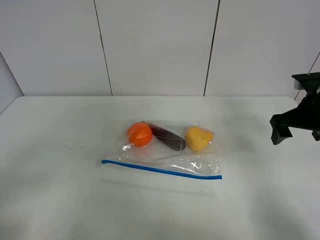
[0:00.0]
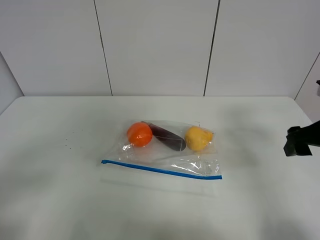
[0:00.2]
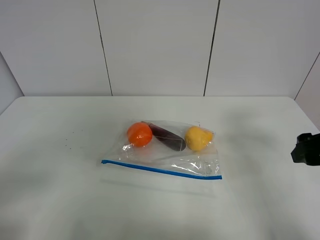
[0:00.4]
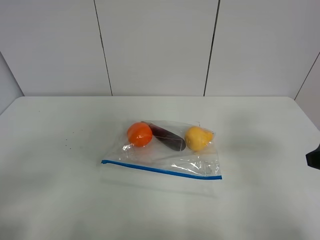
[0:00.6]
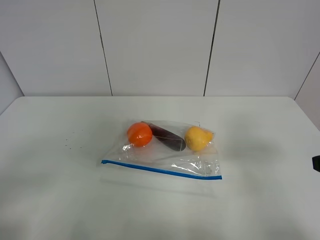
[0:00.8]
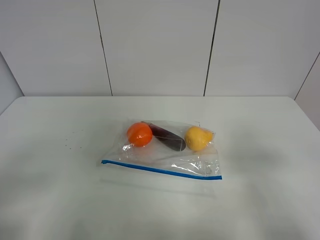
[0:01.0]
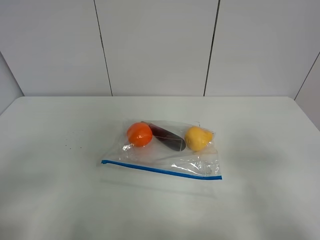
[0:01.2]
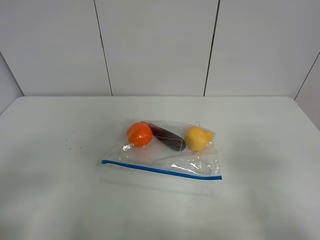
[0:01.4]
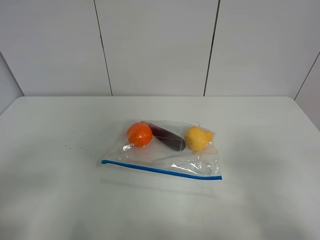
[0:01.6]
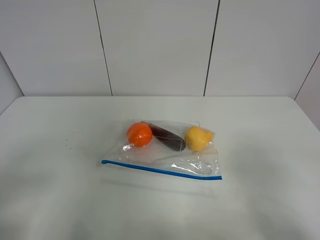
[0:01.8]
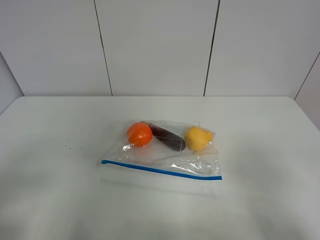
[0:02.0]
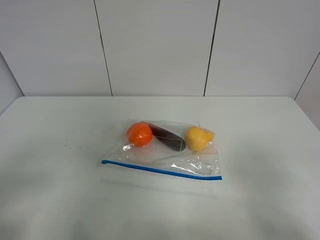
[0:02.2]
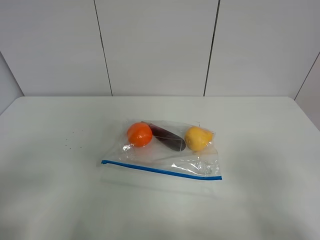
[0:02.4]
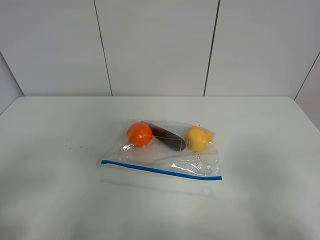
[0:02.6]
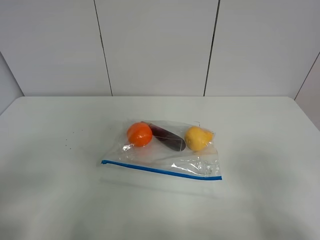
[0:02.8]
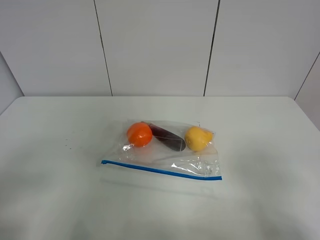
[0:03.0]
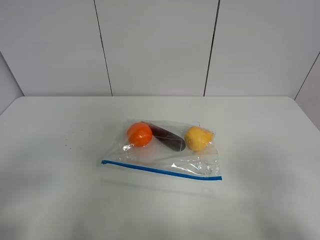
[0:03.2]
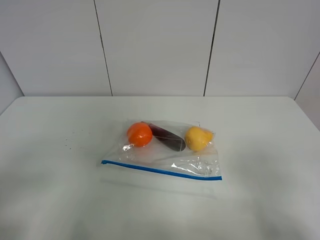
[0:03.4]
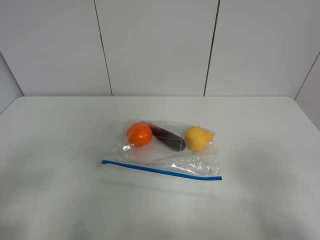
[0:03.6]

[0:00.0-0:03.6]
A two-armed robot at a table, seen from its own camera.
0.0 to 1.8 s: The right gripper heads backward, covering about 25 cm.

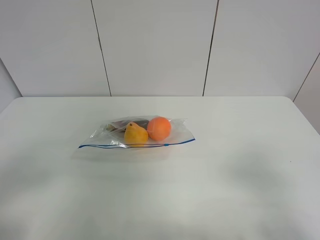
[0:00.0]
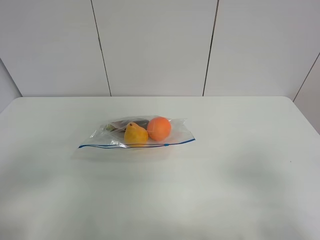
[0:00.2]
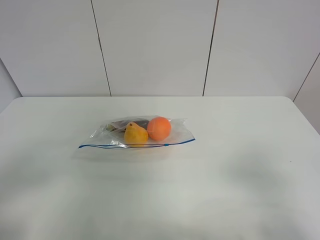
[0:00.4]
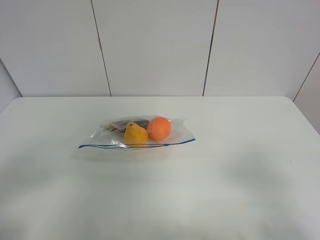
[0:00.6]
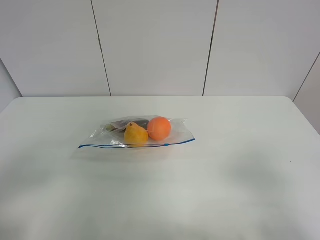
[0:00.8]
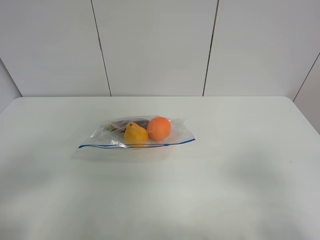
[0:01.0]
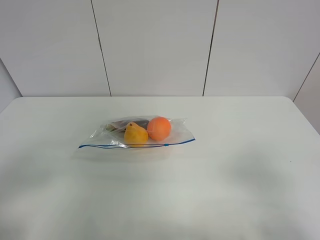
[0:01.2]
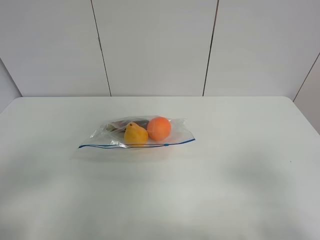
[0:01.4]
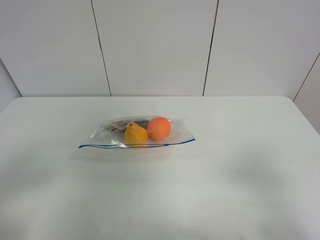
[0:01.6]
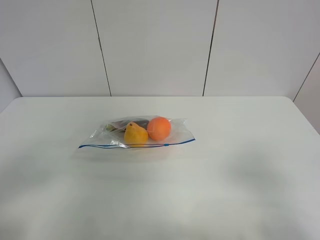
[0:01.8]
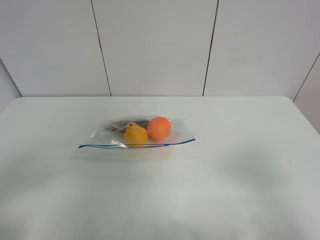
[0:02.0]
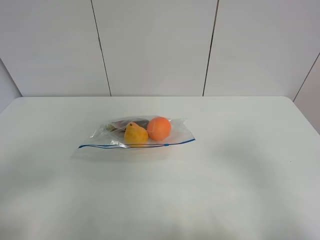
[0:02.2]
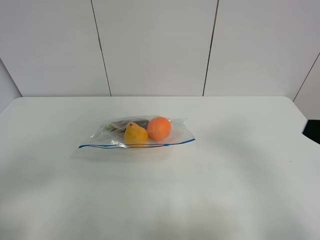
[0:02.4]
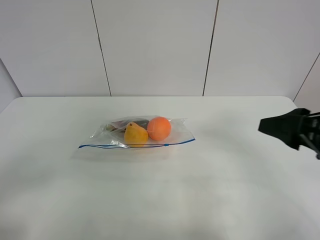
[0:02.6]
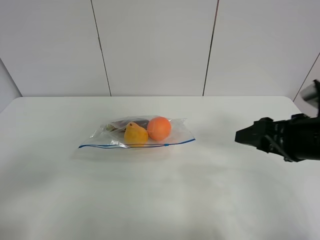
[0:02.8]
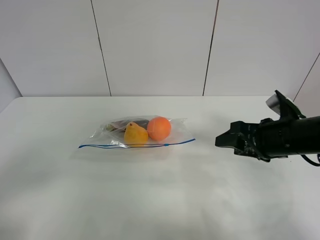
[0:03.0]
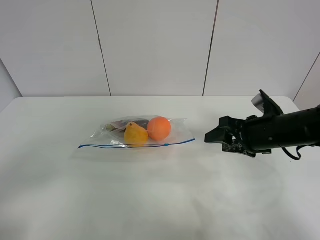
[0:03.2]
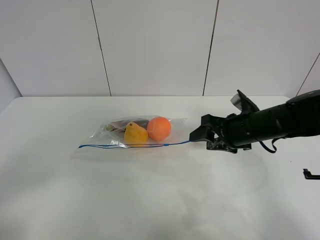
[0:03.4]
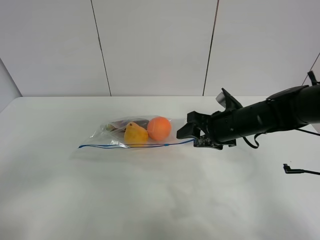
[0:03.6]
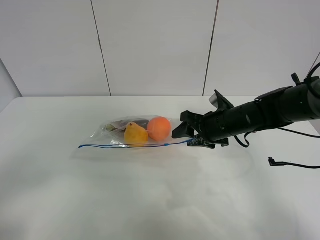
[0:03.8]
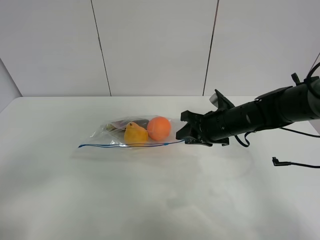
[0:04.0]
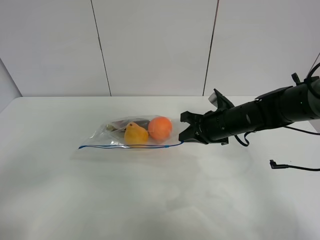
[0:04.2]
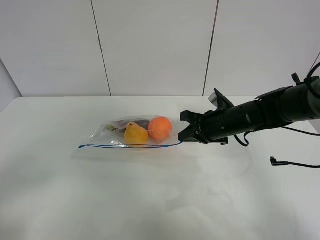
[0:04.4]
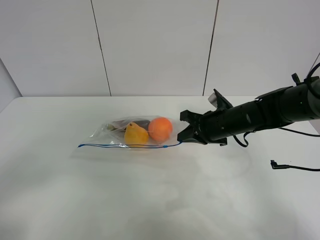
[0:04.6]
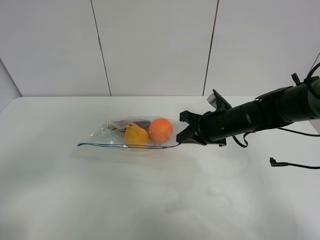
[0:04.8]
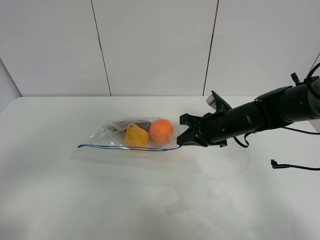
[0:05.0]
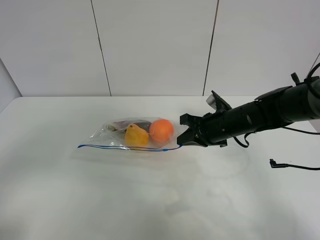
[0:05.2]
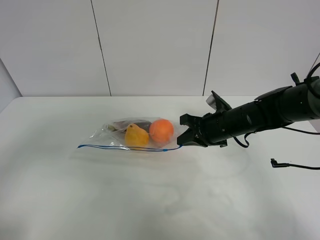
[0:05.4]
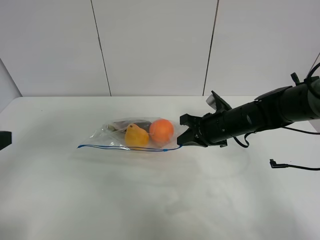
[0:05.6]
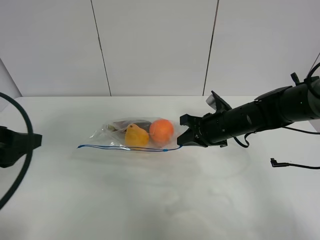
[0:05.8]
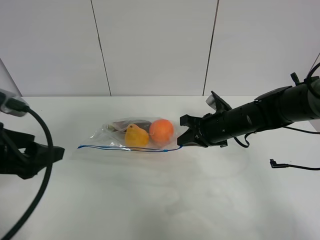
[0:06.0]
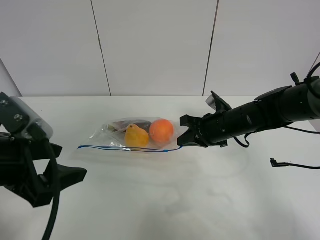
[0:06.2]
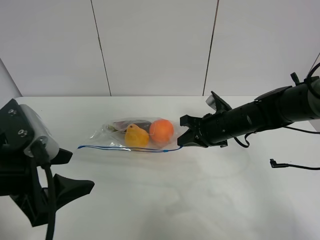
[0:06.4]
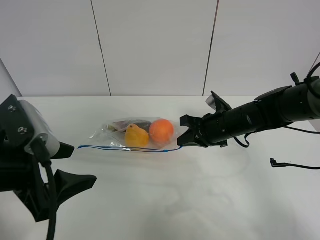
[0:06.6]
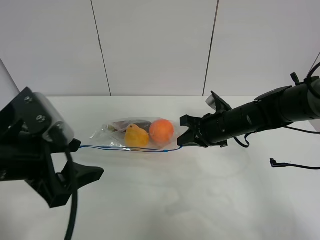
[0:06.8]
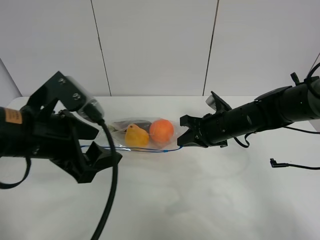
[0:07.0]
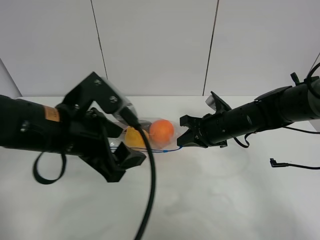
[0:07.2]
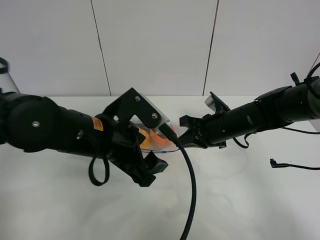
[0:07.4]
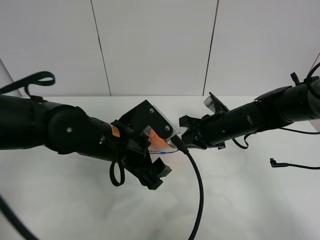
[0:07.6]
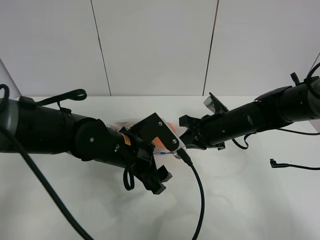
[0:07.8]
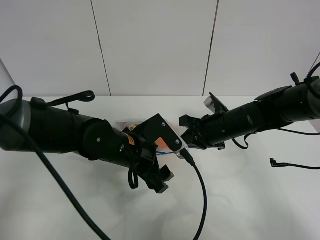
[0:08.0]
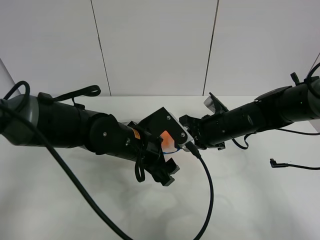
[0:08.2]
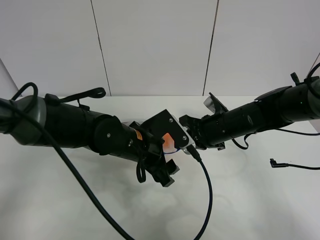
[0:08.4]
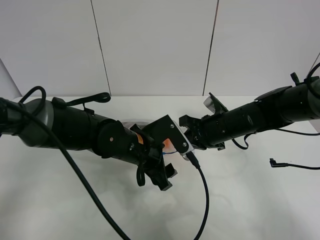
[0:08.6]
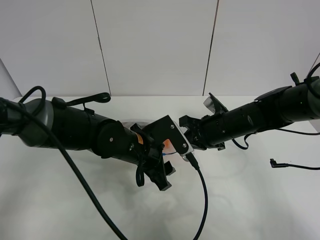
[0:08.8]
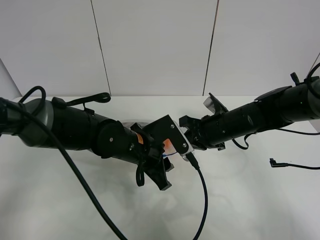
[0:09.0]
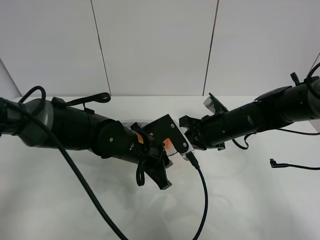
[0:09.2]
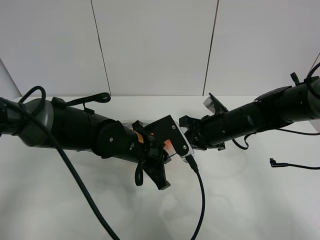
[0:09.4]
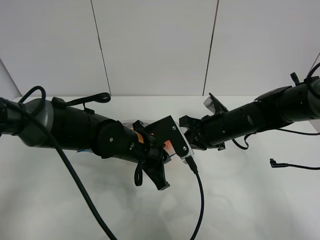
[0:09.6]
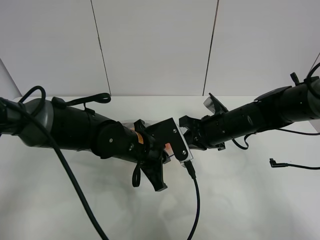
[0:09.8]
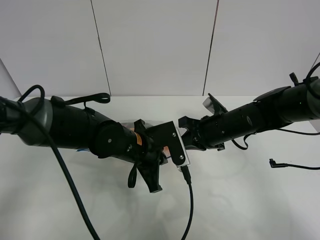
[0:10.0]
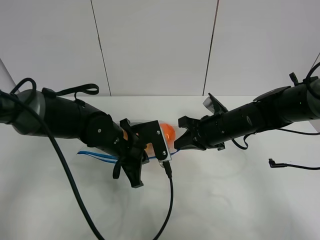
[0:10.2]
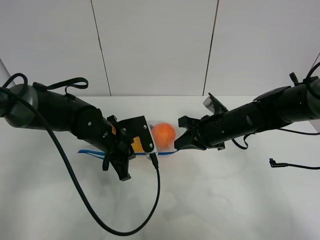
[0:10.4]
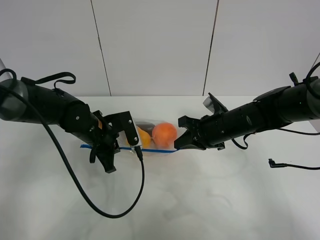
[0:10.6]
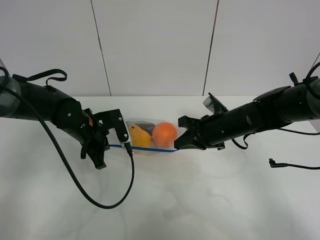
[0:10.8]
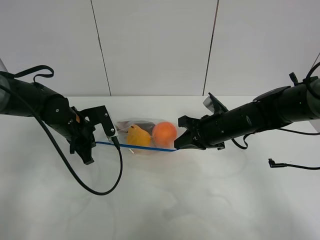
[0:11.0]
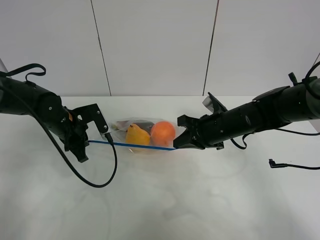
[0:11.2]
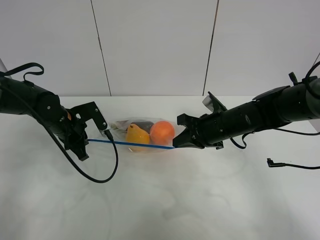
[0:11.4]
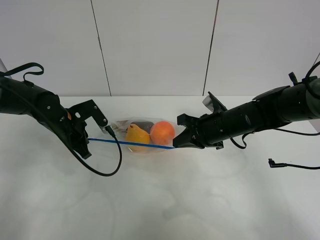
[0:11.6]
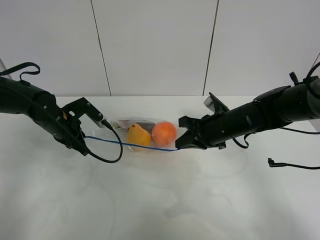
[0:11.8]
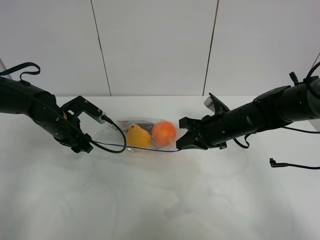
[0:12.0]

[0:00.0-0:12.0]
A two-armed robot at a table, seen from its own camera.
Step, 0.0 to 4.0 s: Grasp the fruit bag with right gripper.
Step, 4.2 to 12.0 s: Pull the fruit bag with left gripper.
0.0 to 1.6 s: Both grippers stay put.
1.6 to 3.0 s: The right gripper goes approximately 25 cm forward.
3.0 to 4.4 s: The right gripper travels forward and to the left by about 10 cm, and closes.
4.4 to 6.0 s: The left gripper goes some 15 cm forward.
6.0 to 7.6 s: The left gripper goes roughly 20 cm to the right and forward.
7.6 to 9.0 s: The left gripper moves about 5 cm, and closes.
9.0 to 10.4 s: The left gripper goes about 5 cm to the left, and closes.
10.4 to 12.0 s: The left gripper goes about 10 cm to the left, and opens its fingers.

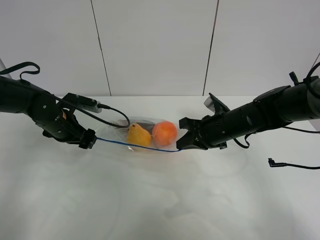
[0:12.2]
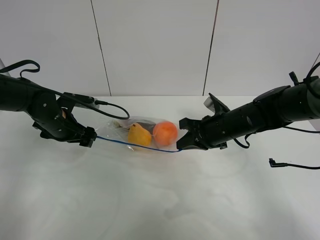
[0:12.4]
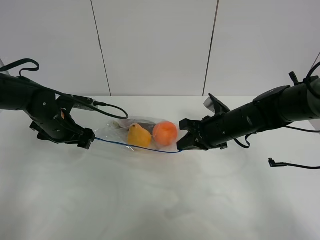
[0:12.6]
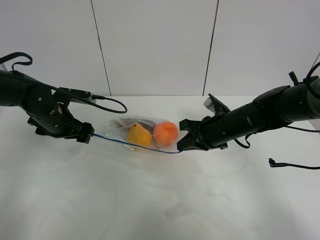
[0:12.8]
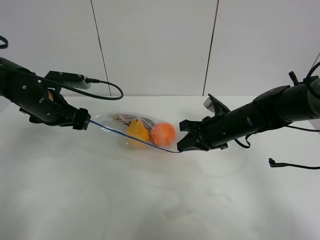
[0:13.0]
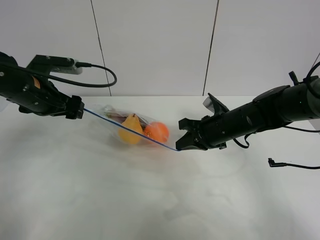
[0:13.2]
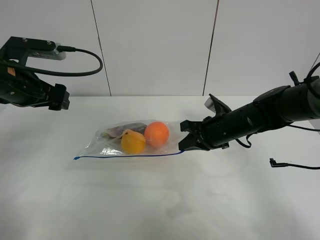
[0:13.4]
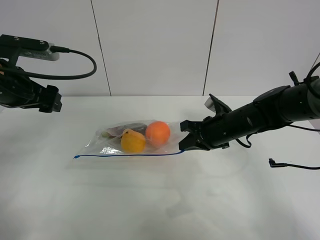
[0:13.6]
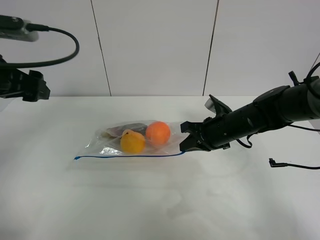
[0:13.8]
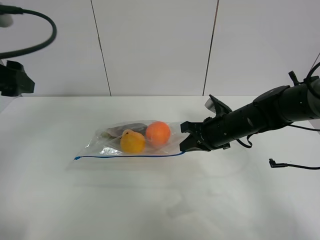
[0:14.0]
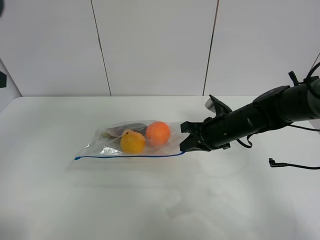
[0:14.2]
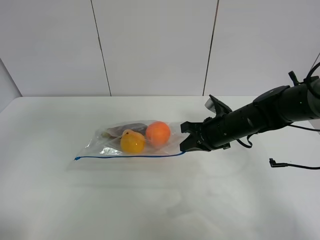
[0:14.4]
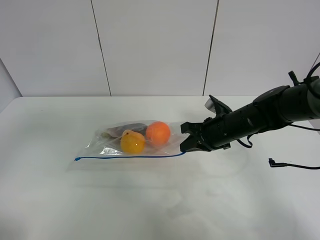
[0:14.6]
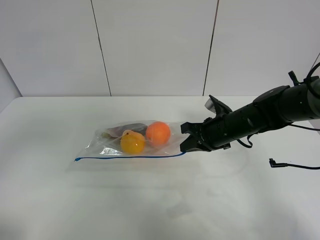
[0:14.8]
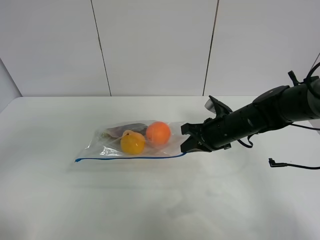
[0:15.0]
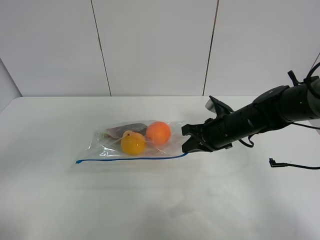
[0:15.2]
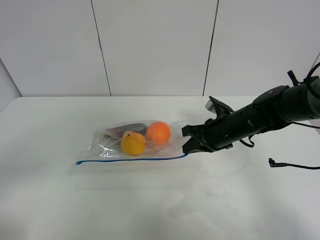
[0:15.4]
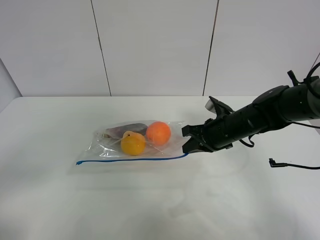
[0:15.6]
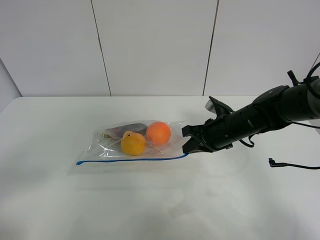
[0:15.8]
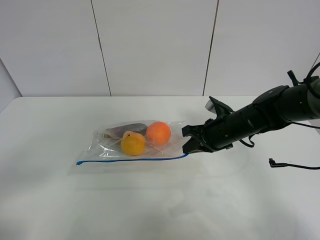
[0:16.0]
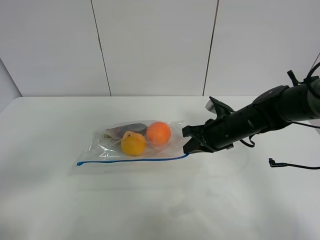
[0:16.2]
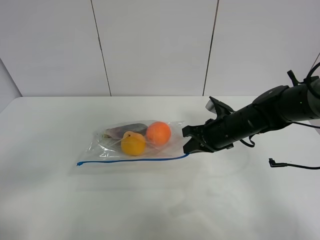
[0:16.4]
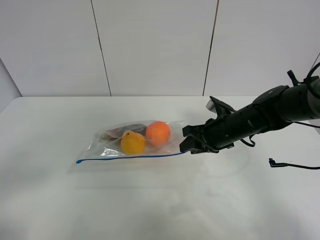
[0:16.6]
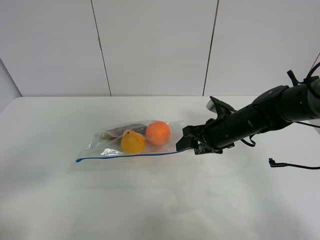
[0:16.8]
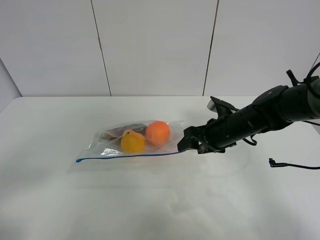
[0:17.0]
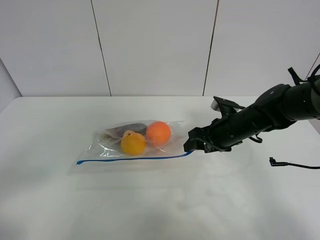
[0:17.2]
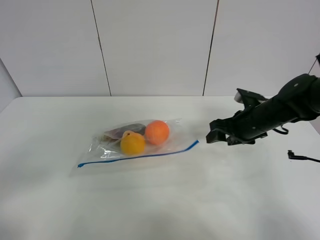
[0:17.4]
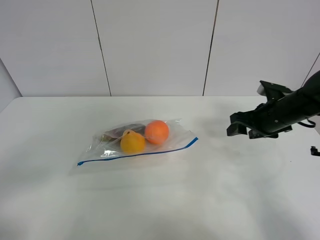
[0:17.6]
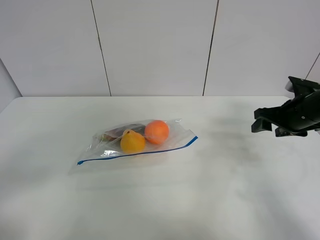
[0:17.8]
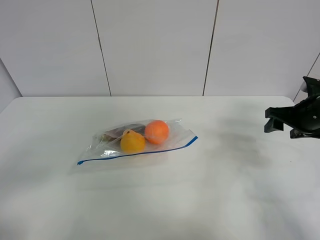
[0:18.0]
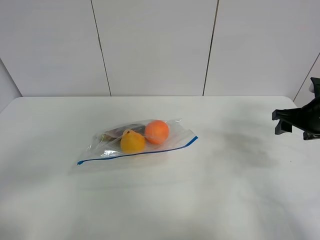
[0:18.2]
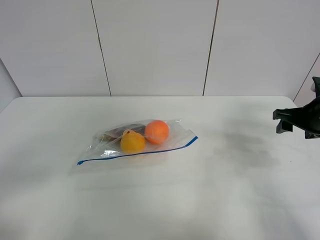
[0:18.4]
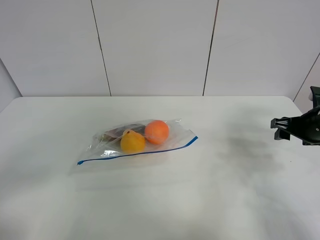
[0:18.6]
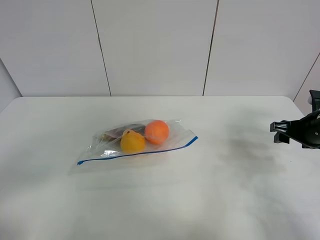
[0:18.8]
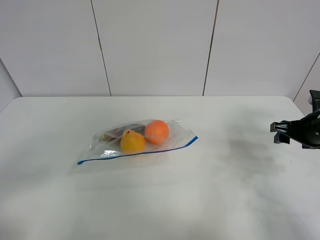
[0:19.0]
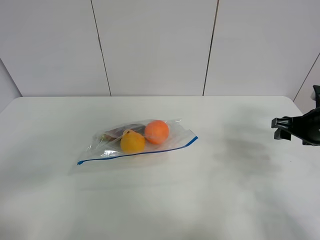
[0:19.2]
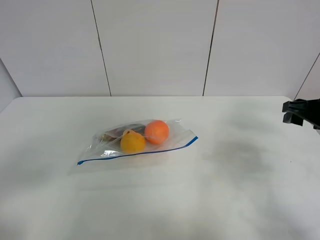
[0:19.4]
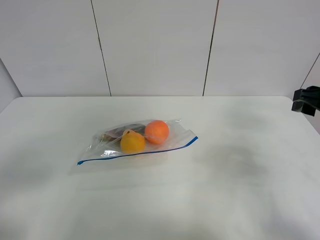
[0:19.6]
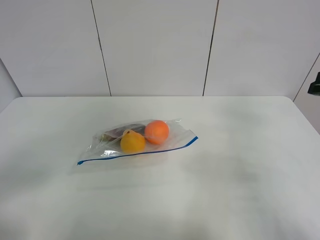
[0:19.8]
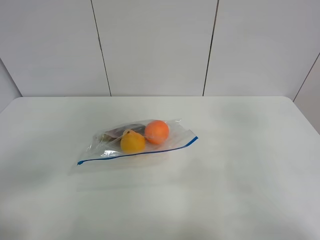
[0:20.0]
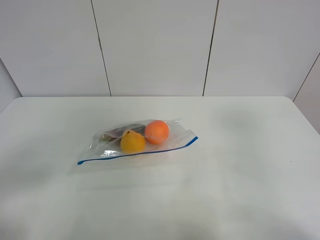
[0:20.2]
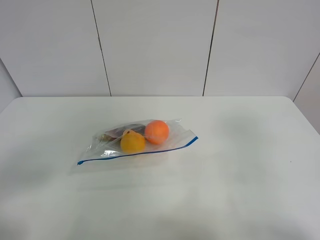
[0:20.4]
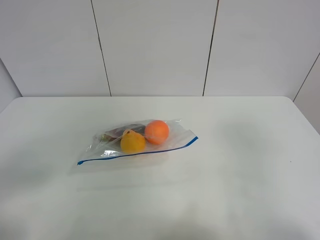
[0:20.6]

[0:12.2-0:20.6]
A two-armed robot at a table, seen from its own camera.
Step, 12.2 to 17.6 s: Place the fruit bag with right gripper.
12.2 to 13.6 s: The left gripper shifts roughly 15 cm upward and backward.
13.6 to 15.0 s: The left gripper heads backward, covering roughly 25 cm.
15.0 to 16.4 s: The left gripper is displaced downward by some 10 cm.
16.4 to 17.8 s: The right gripper shifts about 15 cm to the right, and opens its fingers.
17.8 to 19.2 s: The grippers stay close to where they were, moving slightly.
19.2 to 20.6 s: The right gripper moves backward and upward, about 30 cm.
